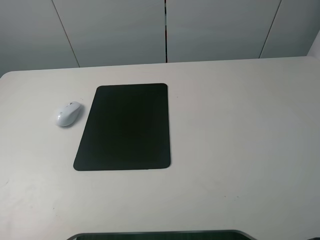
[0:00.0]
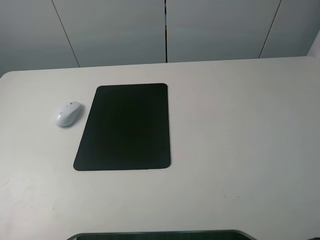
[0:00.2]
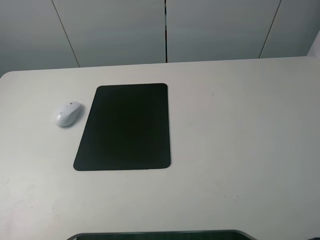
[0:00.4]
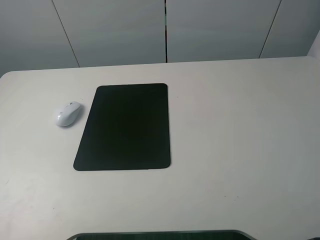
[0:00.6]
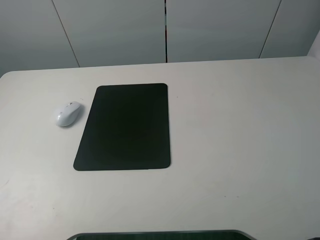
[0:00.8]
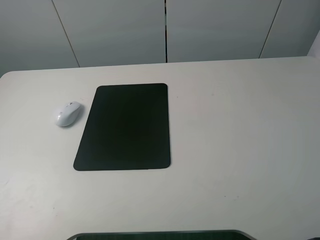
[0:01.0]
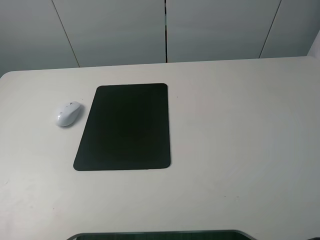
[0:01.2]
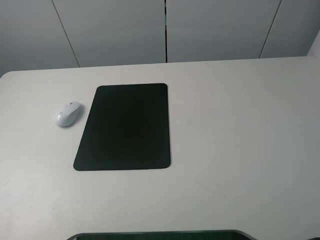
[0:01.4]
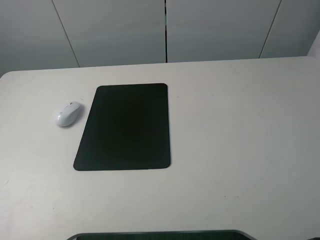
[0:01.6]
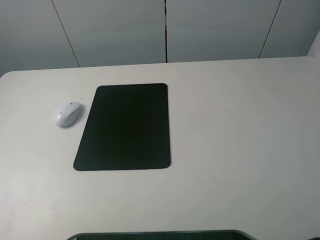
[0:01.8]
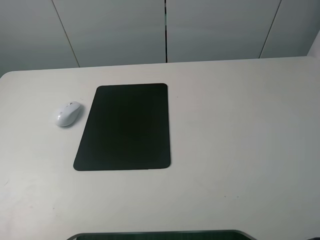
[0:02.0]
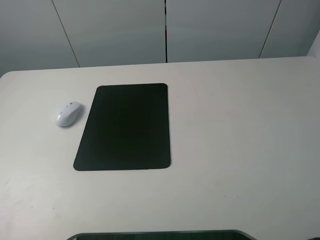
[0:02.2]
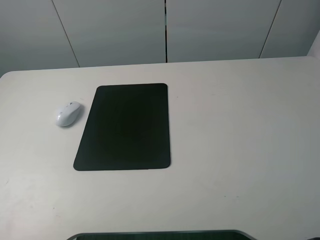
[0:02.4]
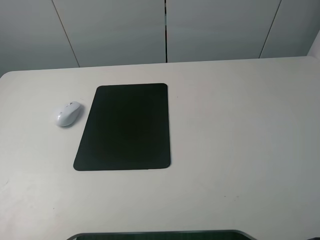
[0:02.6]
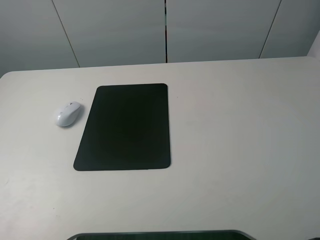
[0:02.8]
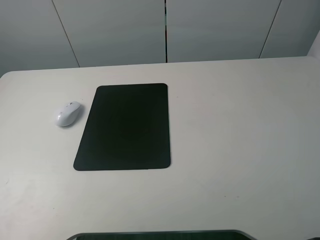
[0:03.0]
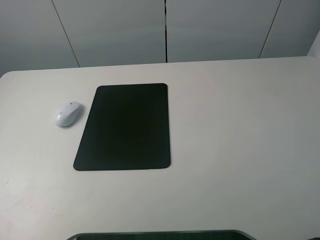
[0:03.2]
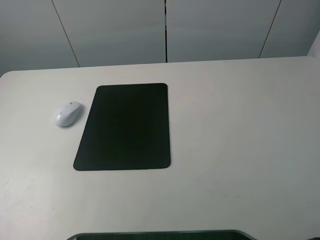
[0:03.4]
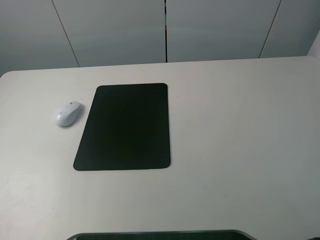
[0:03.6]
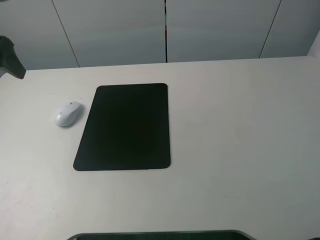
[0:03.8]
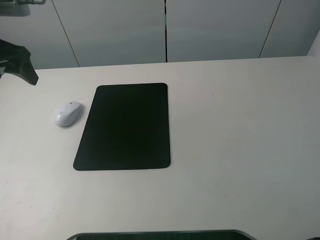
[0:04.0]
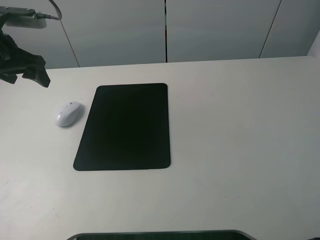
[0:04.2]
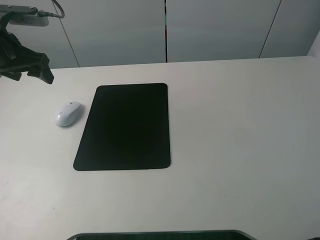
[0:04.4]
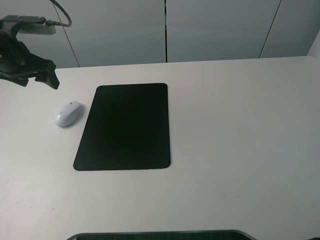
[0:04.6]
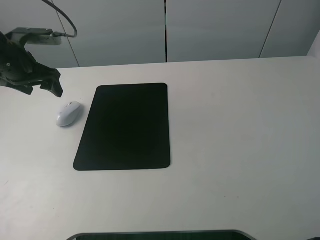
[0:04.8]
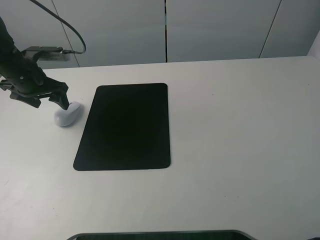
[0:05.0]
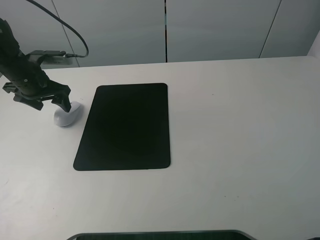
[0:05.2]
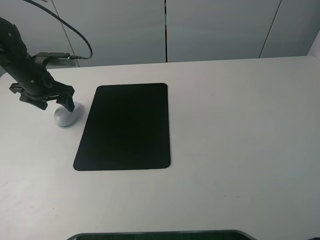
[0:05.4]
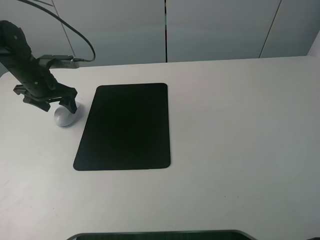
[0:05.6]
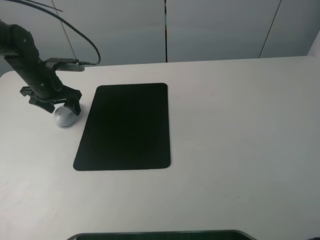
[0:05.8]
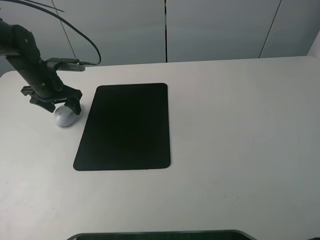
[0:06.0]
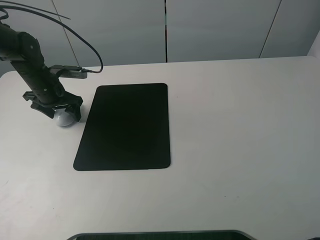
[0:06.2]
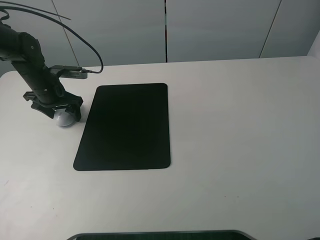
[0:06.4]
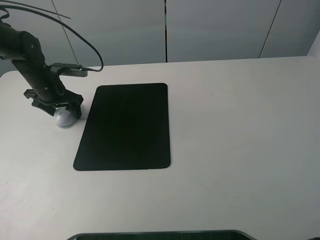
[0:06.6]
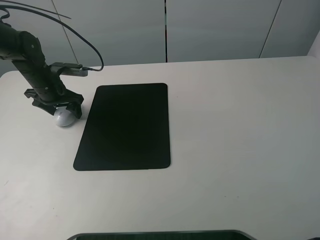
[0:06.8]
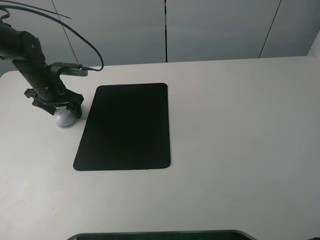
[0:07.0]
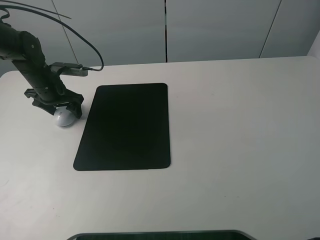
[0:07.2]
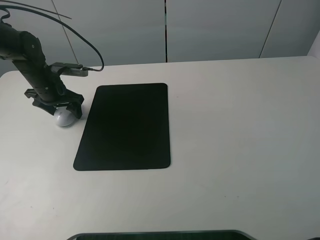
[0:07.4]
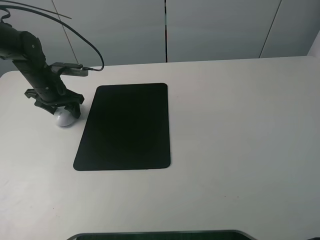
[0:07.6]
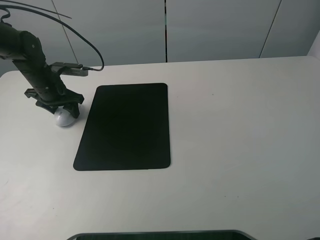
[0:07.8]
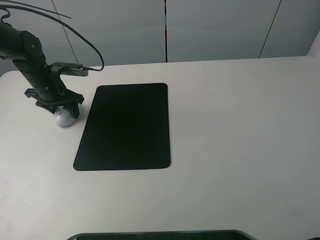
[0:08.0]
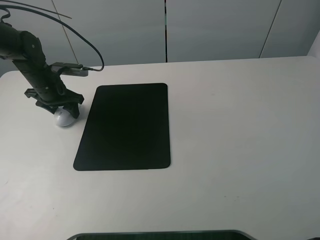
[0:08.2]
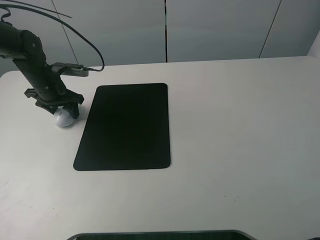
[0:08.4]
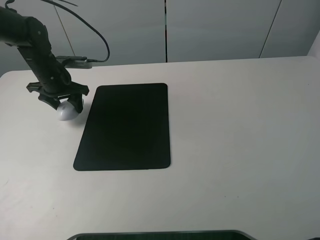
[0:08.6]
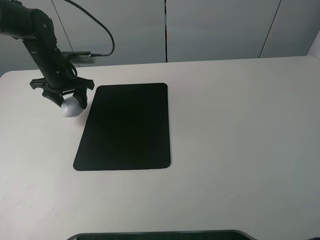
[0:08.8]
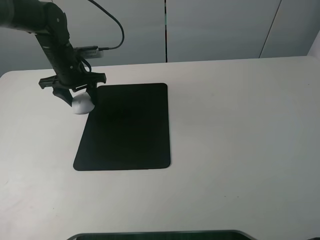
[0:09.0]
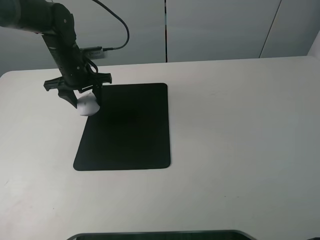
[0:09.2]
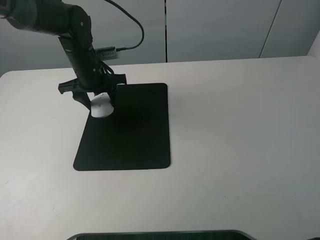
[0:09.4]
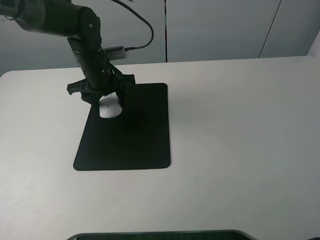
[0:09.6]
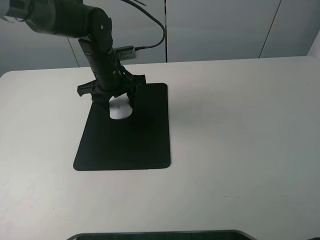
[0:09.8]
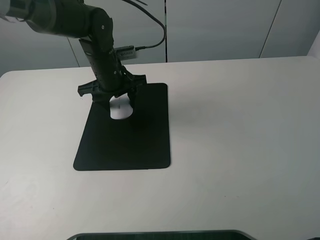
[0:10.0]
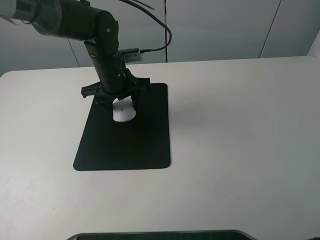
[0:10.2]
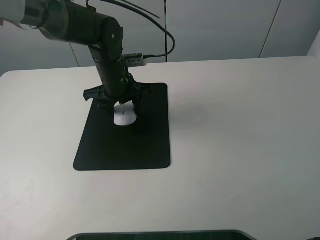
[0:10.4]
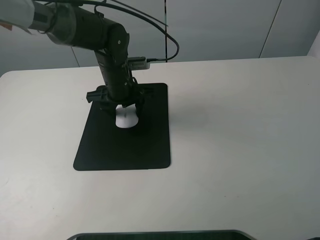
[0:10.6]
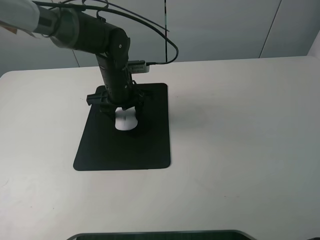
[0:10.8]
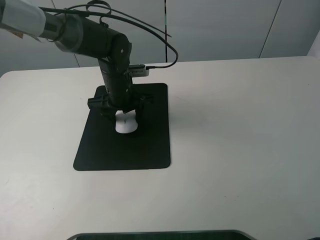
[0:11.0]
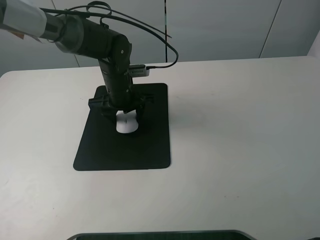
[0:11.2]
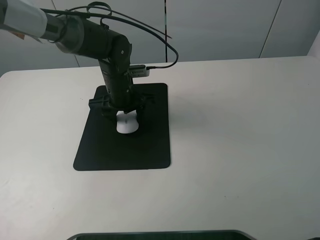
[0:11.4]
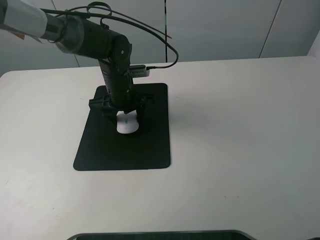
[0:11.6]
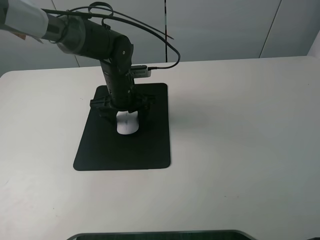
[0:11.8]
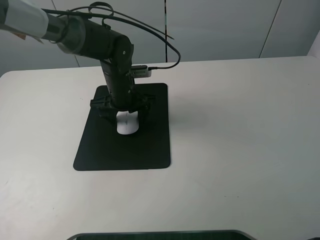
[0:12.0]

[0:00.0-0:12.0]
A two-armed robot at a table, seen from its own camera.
Step, 0:00.0 to 0:08.0: Grasp the mouse with the left gripper.
Step, 0:08.2 to 0:11.8: Place the mouse on the mouse mat with the left gripper.
0:00.0 to 0:01.6: Neither gripper changes place.
0:03.0 to 0:04.4: The left gripper travels forward by approximately 30 cm.
0:04.4 to 0:06.0: The left gripper shifts roughly 15 cm downward and forward.
0:06.0 to 0:07.6: The left gripper closes its fingers.
0:07.6 to 0:09.0: The left gripper moves to the right, about 5 cm.
0:09.0 to 0:10.4: The left gripper heads to the right, covering about 10 cm.
0:10.4 to 0:12.0: The left gripper opens.

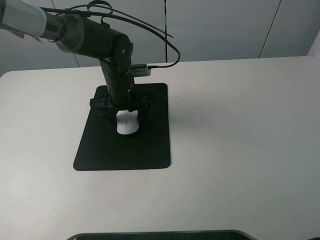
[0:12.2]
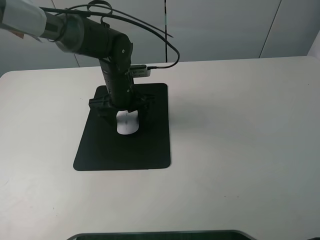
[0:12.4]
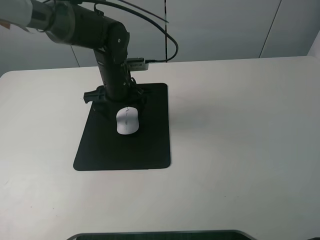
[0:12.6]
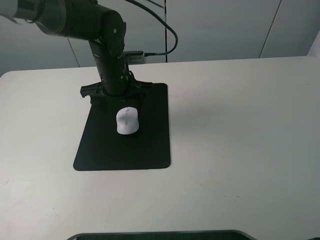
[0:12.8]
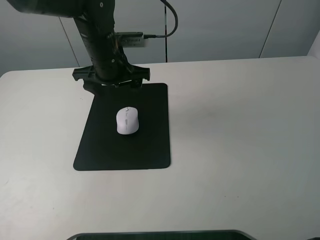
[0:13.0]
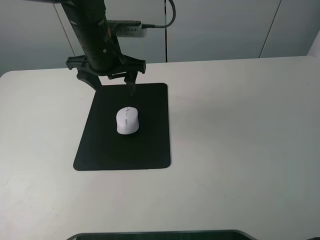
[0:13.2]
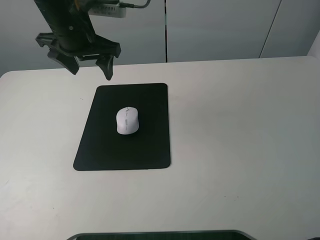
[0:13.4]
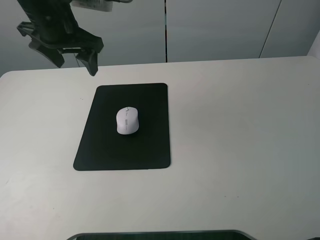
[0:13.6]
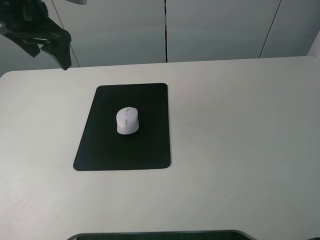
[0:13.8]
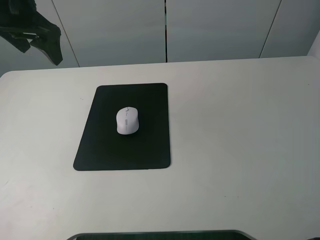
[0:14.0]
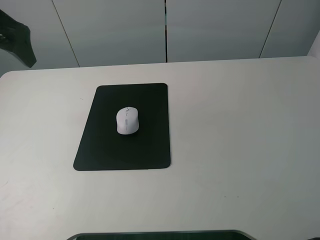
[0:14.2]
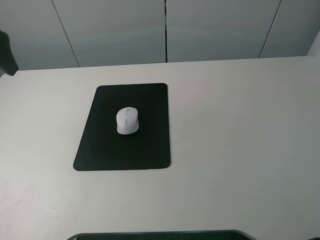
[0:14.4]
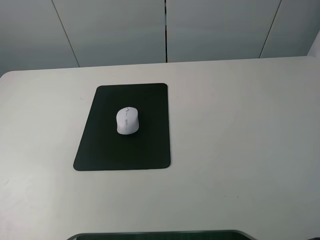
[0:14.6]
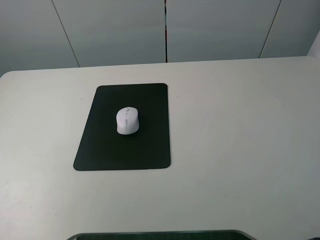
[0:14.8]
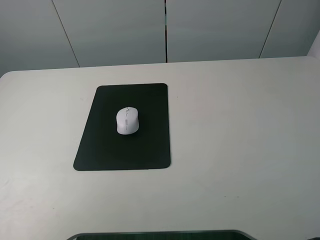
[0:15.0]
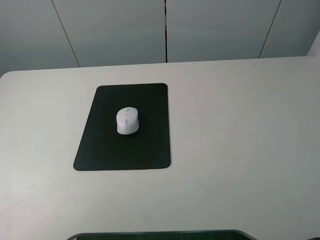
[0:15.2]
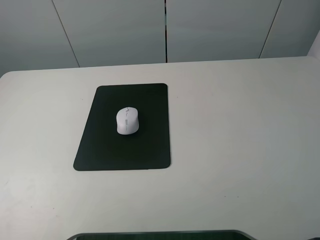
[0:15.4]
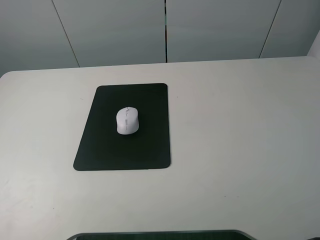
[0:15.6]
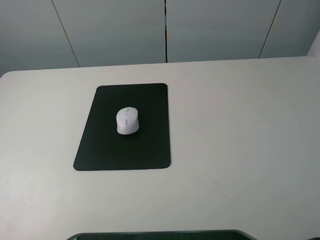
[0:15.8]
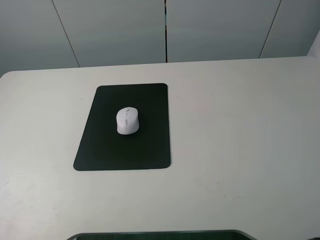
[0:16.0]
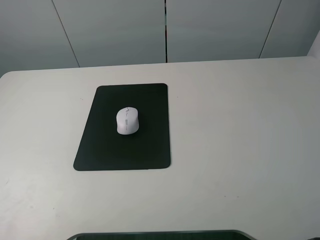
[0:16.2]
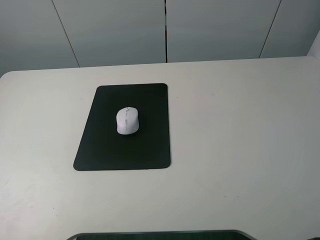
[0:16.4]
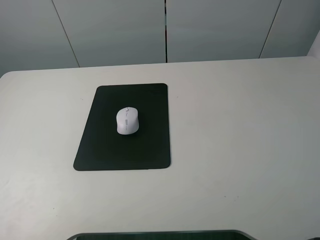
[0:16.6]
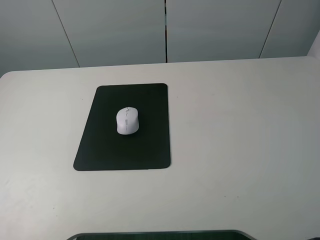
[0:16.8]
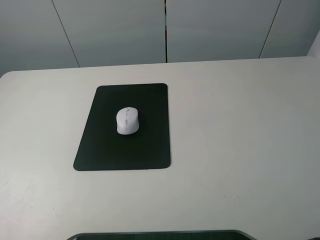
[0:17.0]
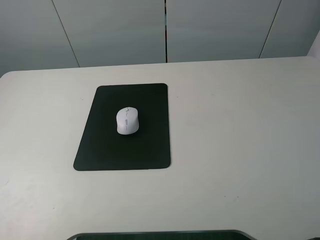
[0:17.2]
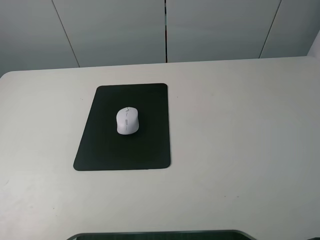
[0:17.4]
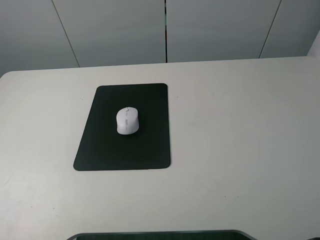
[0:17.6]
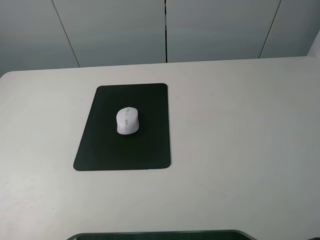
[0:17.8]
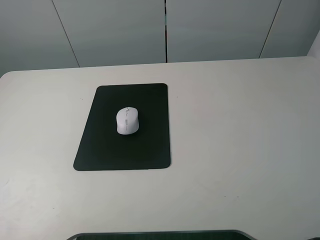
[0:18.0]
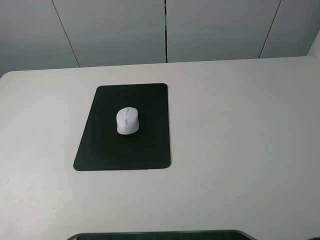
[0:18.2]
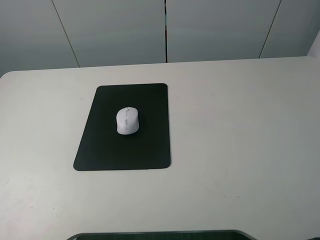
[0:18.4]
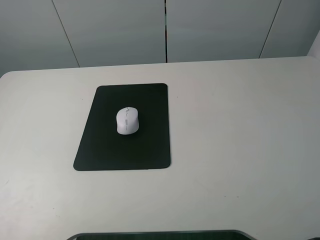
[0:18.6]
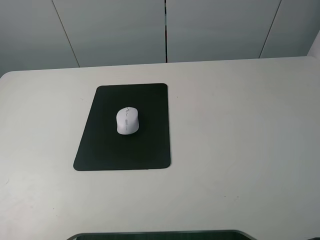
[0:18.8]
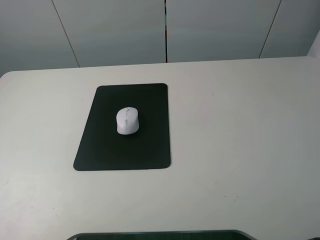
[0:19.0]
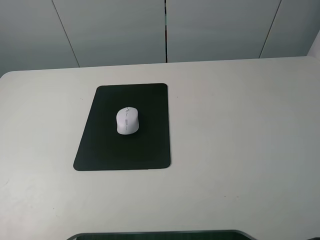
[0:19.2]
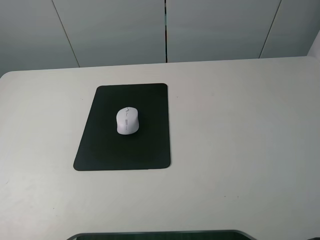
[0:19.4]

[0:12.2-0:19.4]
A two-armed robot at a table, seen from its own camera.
0:12.2 to 0:13.6: The left gripper is displaced upward and to the left by some 20 cm.
0:13.6 to 0:15.0: The left gripper goes roughly 30 cm backward and to the left.
0:16.6 to 0:18.0: Both grippers stay put.

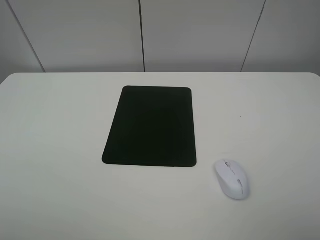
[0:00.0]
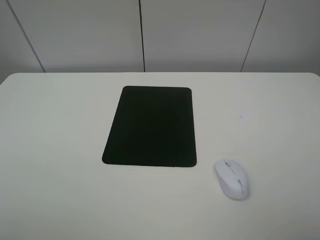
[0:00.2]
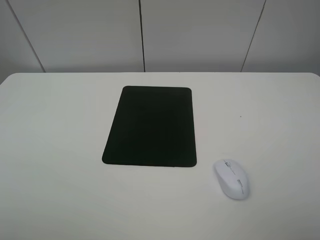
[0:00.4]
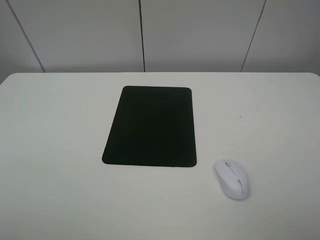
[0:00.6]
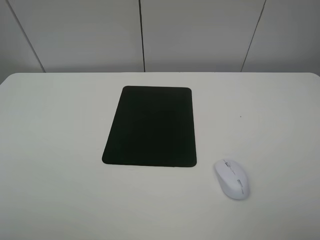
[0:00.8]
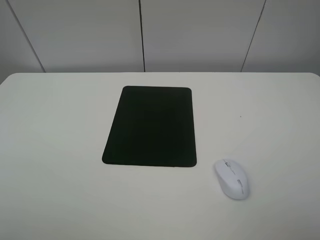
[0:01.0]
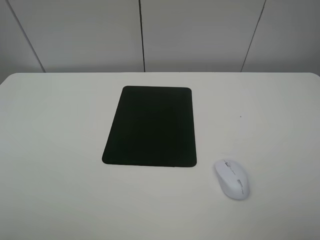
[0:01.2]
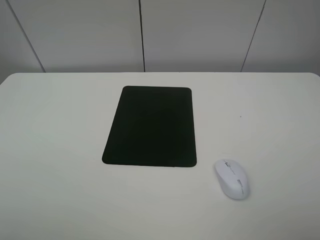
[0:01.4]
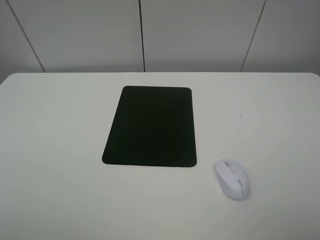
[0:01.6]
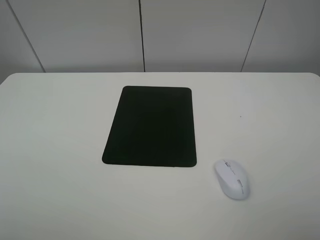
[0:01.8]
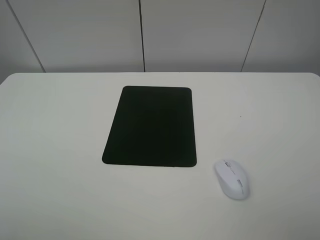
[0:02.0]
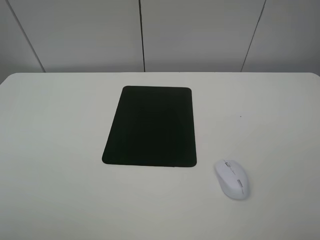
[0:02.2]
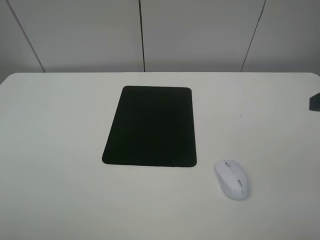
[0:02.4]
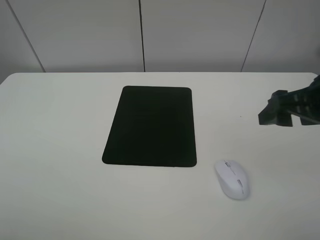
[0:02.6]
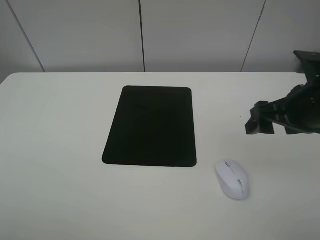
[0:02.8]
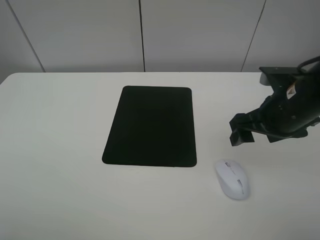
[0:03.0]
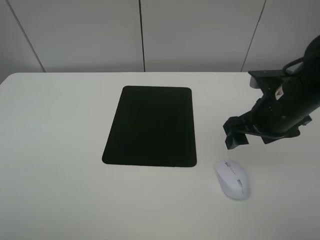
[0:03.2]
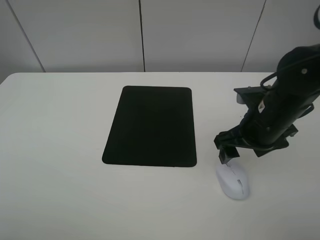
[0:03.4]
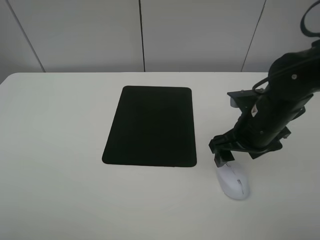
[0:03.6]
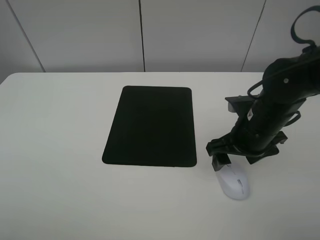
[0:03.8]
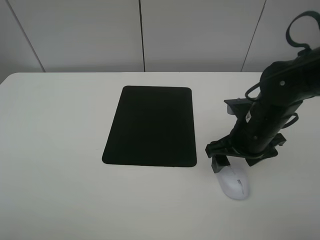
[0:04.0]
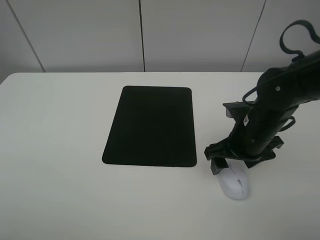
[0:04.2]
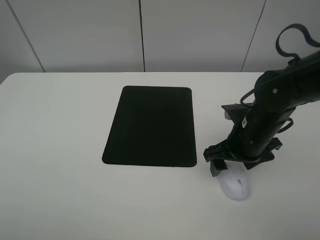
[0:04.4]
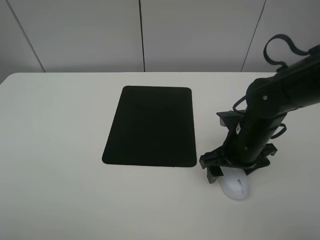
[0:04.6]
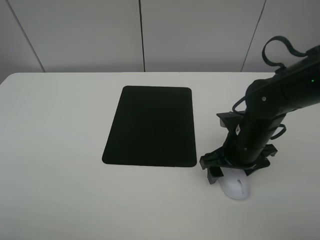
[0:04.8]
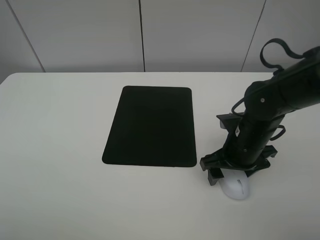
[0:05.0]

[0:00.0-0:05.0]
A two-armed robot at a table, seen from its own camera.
0:00.0 to 0:01.6: Neither gripper changes place.
0:01.6 to 0:03.4: The right gripper moves forward, downward and to the left, some 30 cm.
0:03.4 to 0:05.0: The right gripper shifts approximately 5 cm downward.
